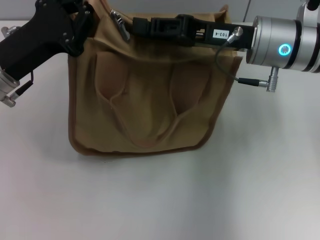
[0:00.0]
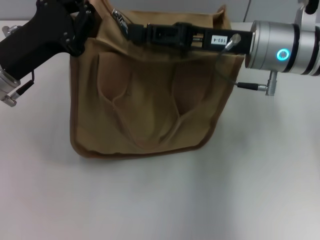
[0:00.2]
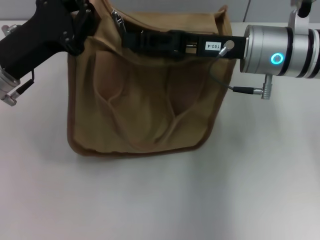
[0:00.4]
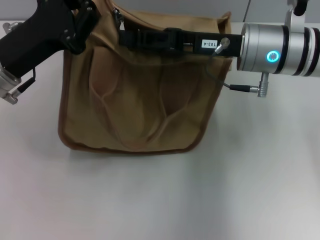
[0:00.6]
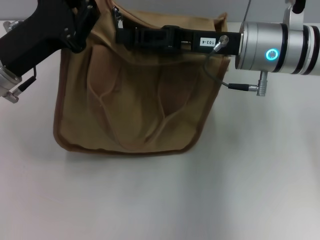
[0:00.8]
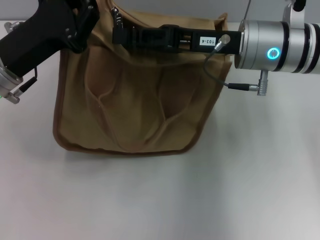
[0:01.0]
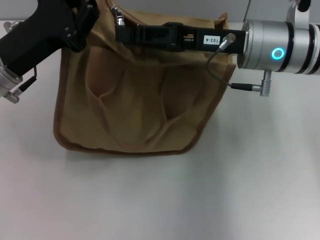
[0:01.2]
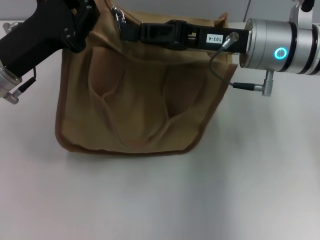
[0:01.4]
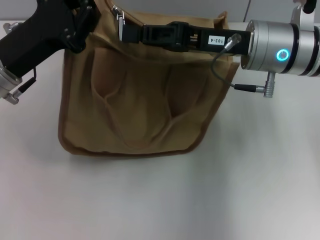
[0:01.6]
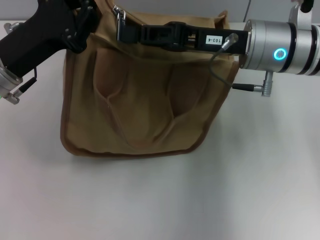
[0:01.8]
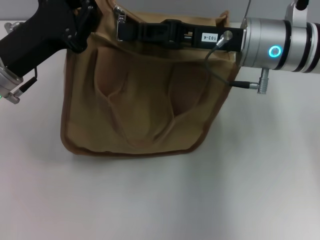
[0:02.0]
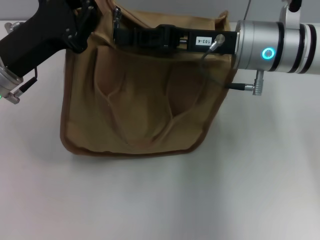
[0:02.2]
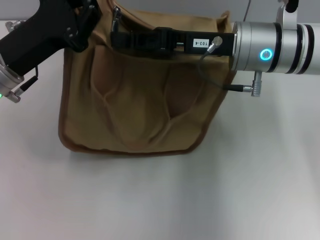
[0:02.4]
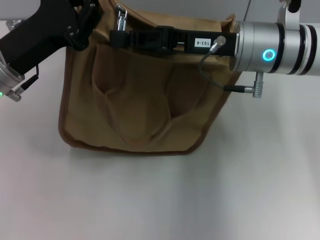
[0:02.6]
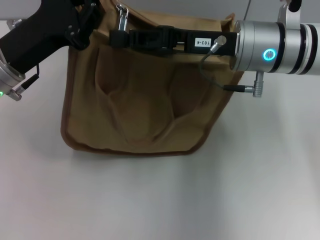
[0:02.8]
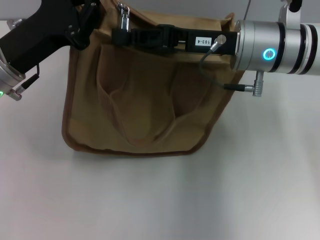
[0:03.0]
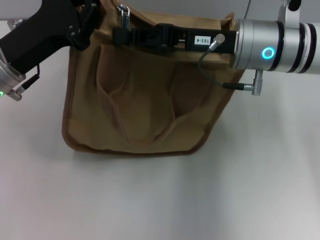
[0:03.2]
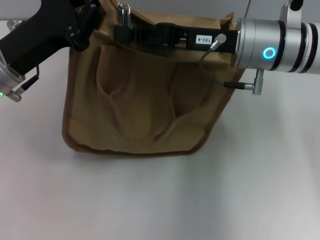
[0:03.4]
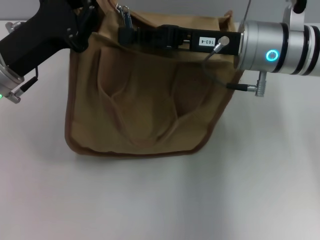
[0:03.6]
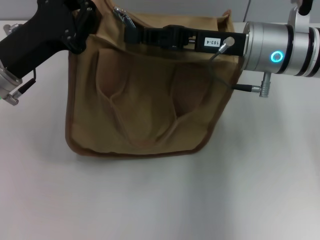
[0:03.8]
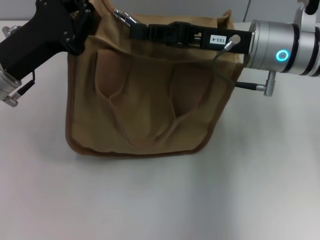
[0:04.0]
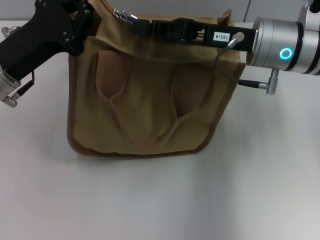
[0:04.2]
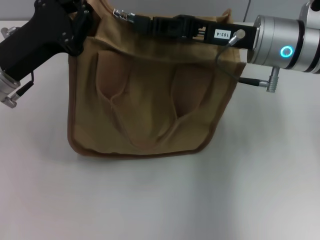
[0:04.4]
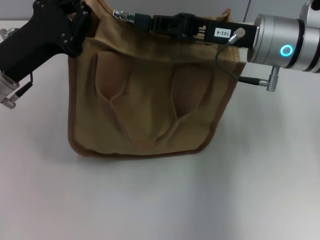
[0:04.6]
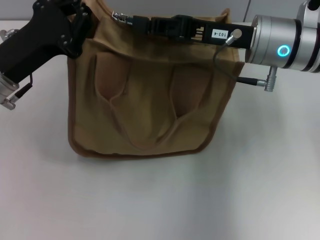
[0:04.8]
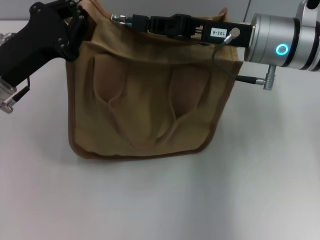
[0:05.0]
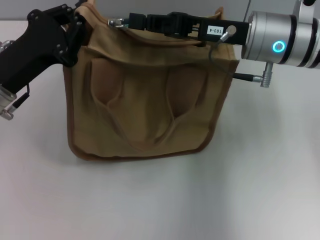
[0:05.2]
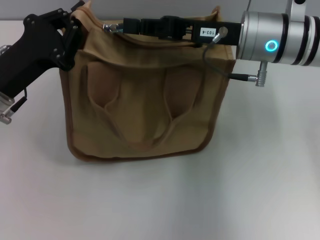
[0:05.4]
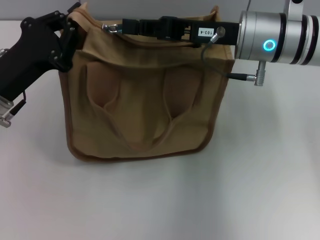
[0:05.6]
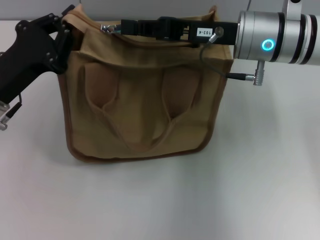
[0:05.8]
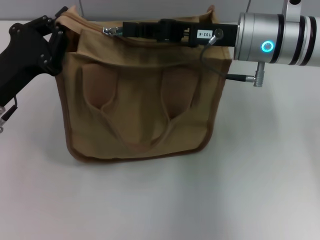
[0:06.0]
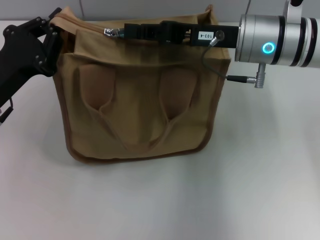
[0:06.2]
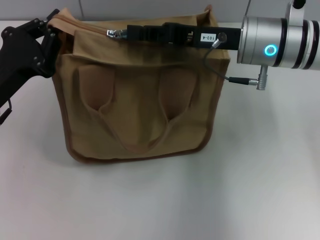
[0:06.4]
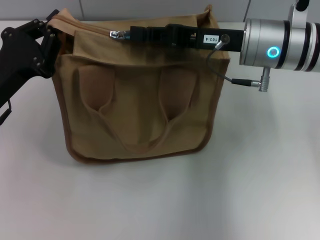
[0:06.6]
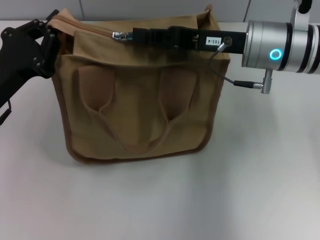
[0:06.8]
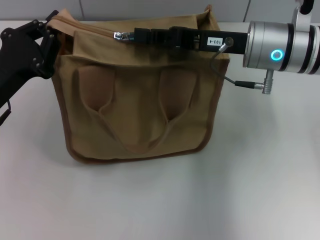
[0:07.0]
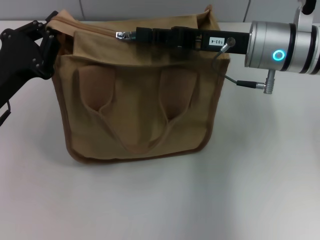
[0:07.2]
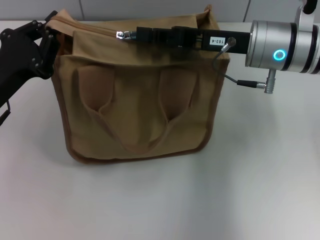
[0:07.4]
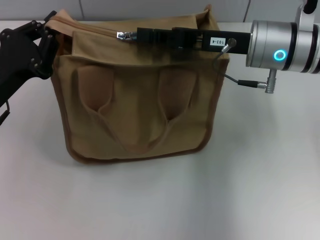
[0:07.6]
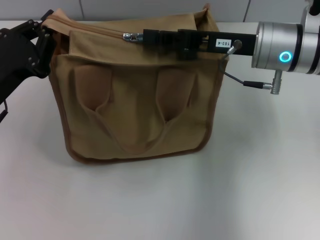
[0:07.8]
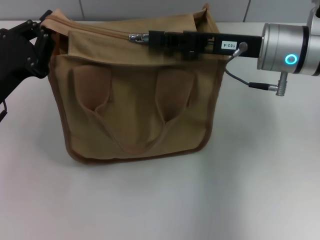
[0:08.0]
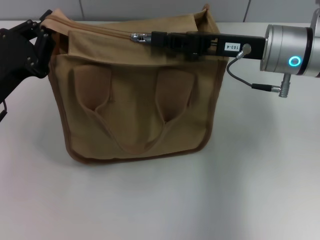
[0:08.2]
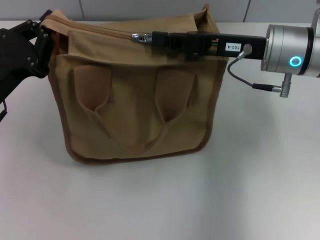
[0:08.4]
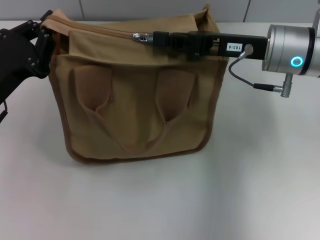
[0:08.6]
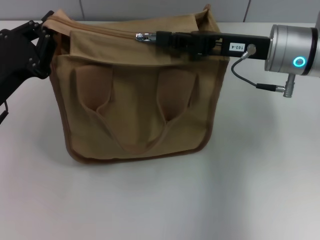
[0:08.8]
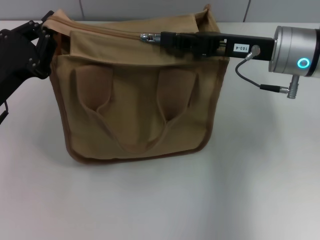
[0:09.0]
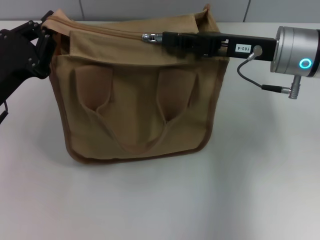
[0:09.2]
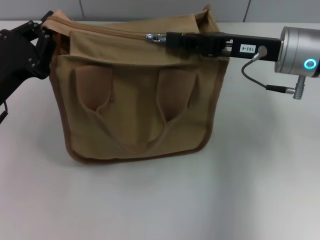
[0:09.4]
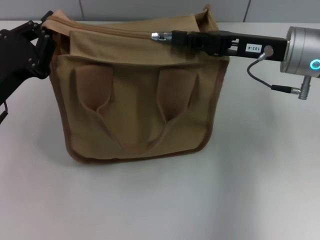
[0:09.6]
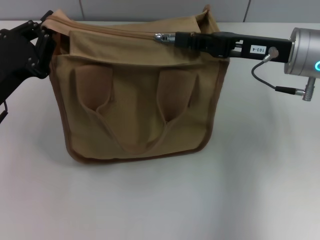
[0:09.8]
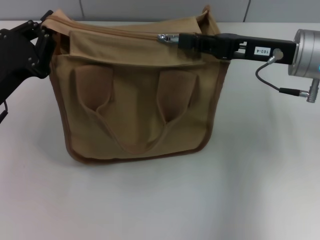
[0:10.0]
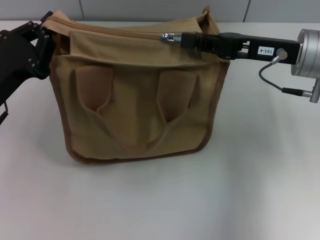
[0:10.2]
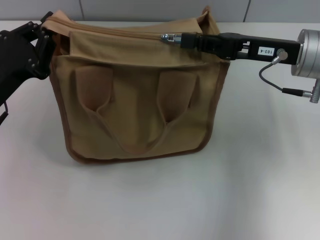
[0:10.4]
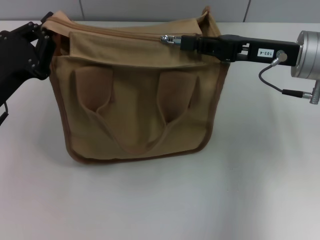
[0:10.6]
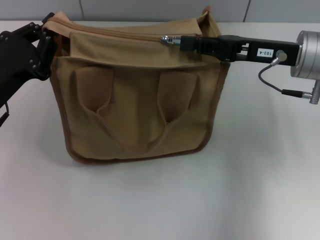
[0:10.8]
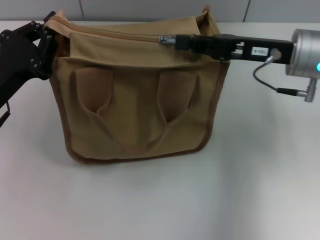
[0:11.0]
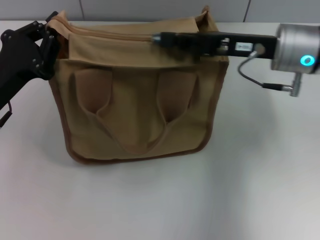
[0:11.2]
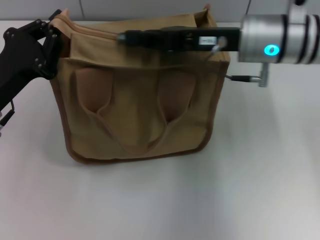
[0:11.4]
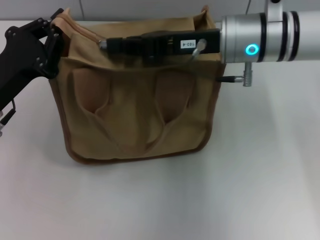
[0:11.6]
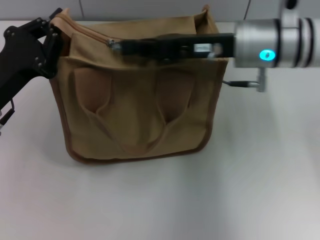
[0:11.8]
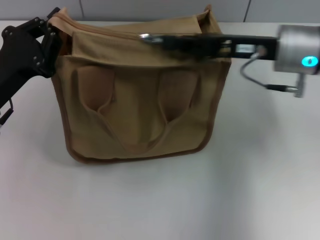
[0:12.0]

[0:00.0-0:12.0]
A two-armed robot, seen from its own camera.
0:00.0 to 0:10.4: There are only small adjustments of the grippers.
0:10.4 to 0:12.0: The right gripper reaches some 10 cm to the left, then returns.

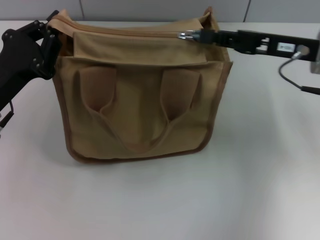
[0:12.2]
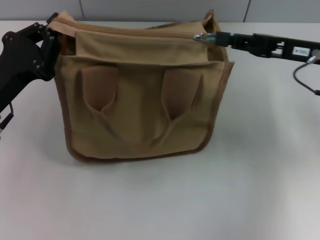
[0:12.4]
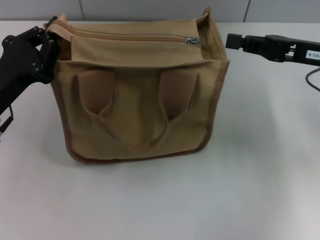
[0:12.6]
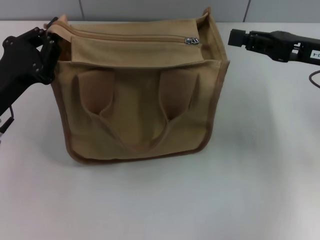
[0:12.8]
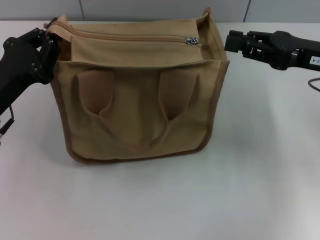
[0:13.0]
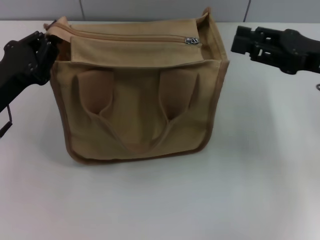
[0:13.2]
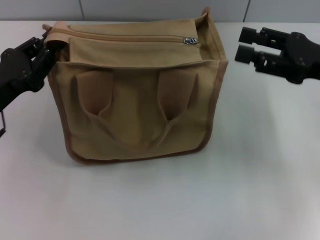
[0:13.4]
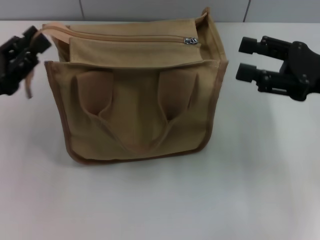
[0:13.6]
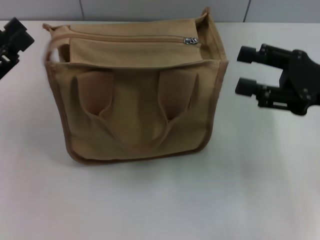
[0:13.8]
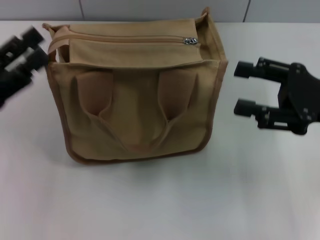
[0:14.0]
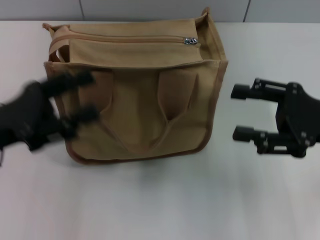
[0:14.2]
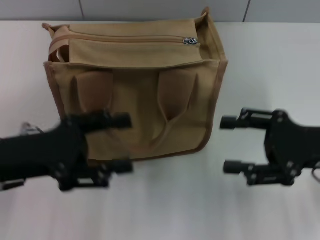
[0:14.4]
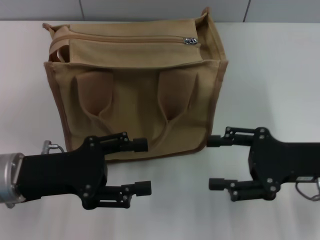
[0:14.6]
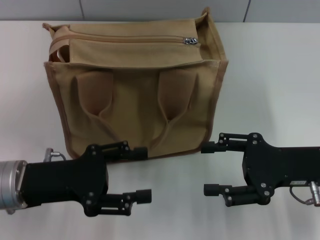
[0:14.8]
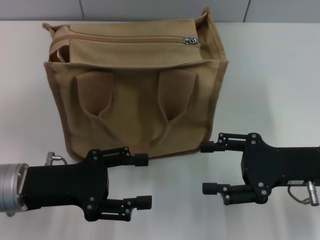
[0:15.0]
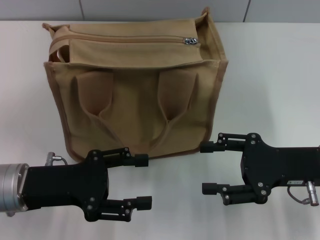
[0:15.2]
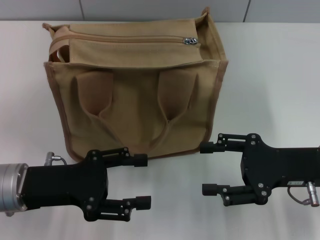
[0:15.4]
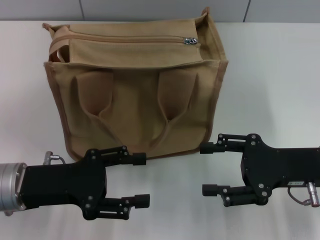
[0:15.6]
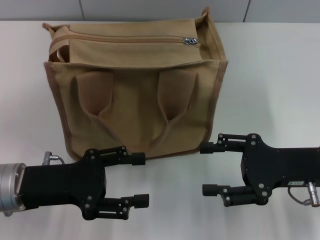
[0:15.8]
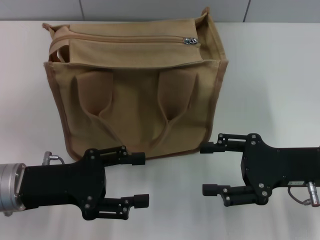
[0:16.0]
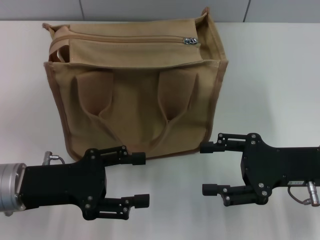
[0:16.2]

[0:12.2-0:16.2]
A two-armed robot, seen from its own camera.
Step, 0:12.8 to 0:13.6: Grab the zipper with your left hand.
0:12.2 to 0:13.6: The right gripper travels backward by approximately 5 cm, and opens up.
0:13.6 to 0:14.8: The right gripper is displaced downward by some 5 cm, while the left gripper moves to the right, about 5 cm, and opens.
0:14.8 to 0:16.2: The two grippers keep their place.
